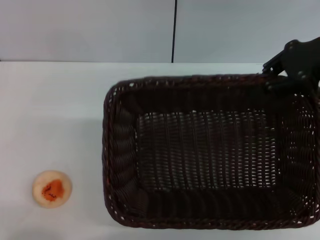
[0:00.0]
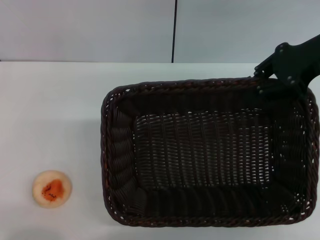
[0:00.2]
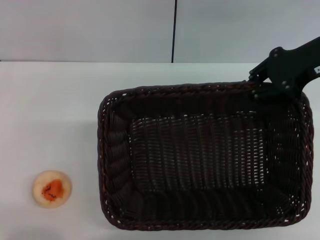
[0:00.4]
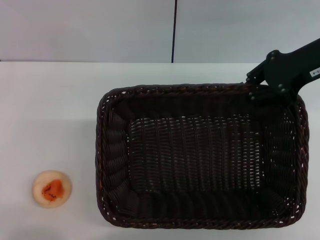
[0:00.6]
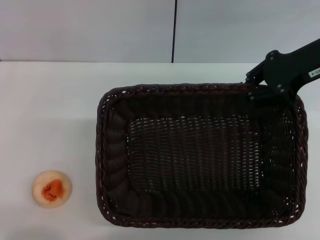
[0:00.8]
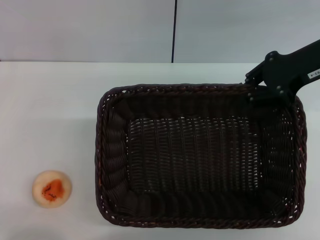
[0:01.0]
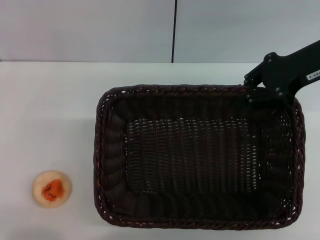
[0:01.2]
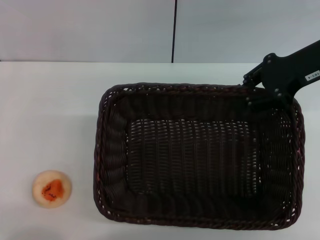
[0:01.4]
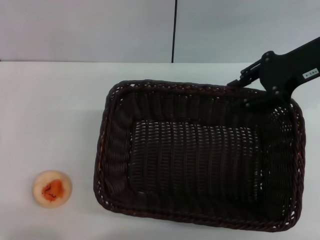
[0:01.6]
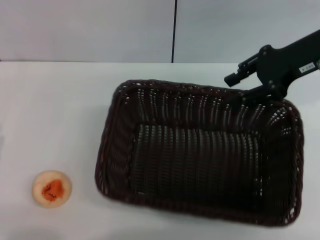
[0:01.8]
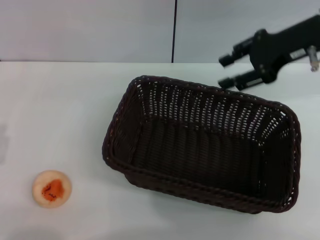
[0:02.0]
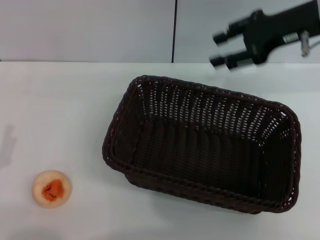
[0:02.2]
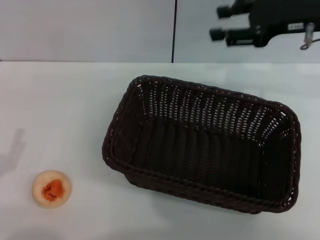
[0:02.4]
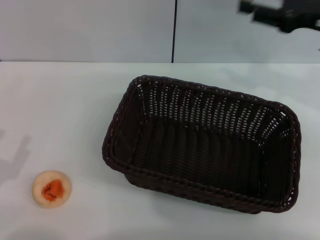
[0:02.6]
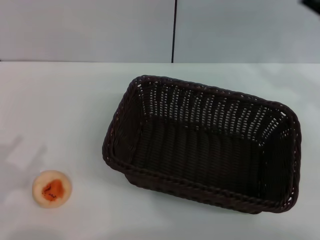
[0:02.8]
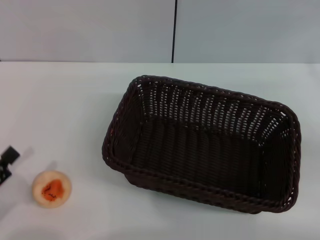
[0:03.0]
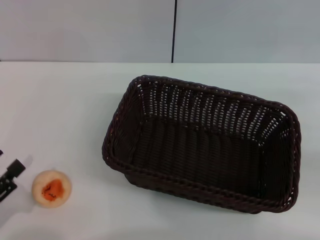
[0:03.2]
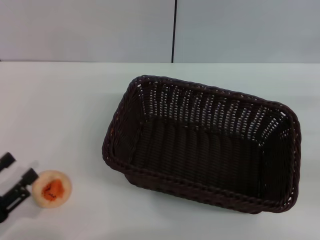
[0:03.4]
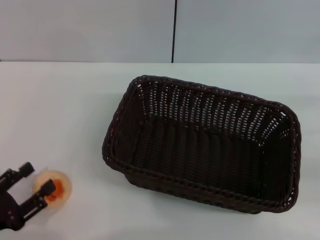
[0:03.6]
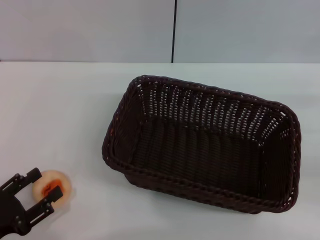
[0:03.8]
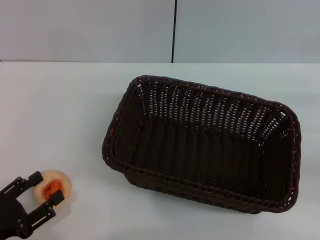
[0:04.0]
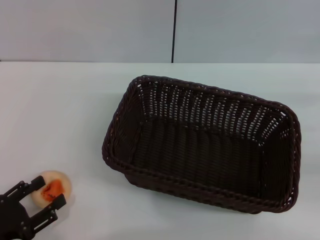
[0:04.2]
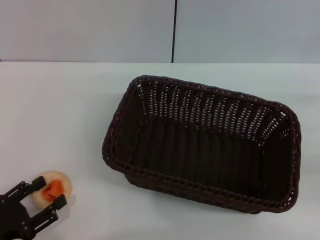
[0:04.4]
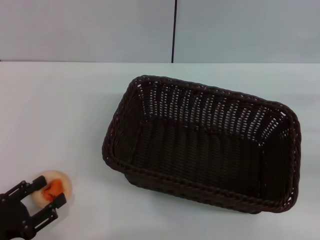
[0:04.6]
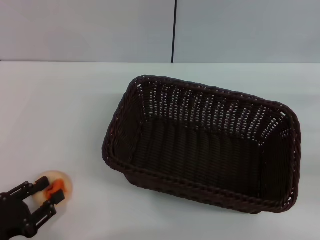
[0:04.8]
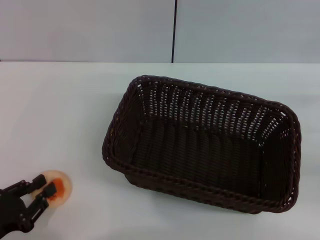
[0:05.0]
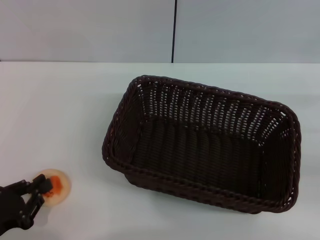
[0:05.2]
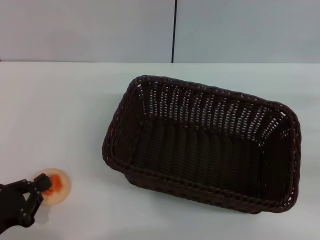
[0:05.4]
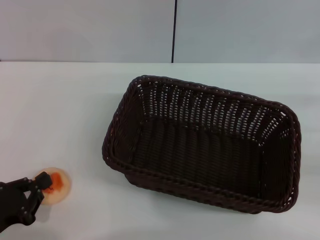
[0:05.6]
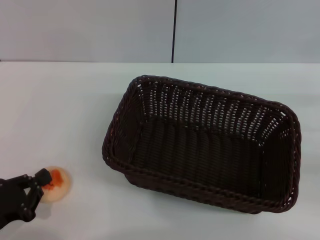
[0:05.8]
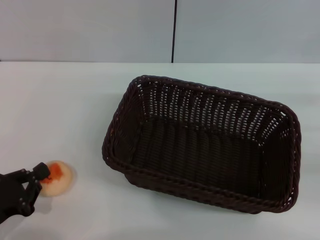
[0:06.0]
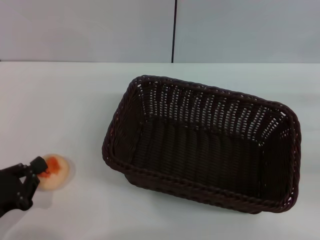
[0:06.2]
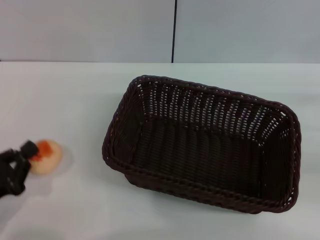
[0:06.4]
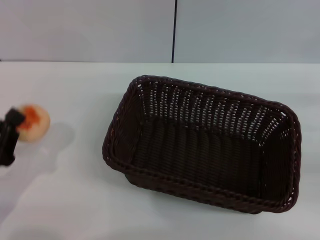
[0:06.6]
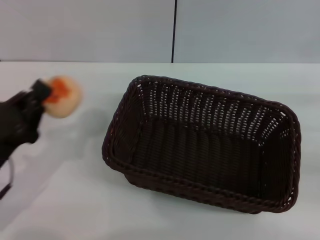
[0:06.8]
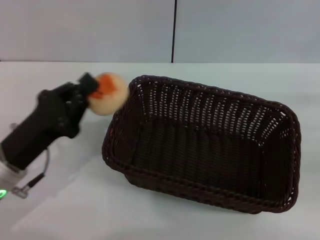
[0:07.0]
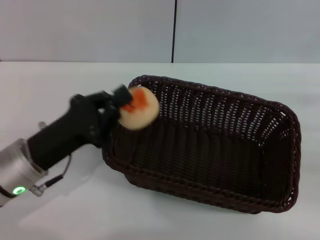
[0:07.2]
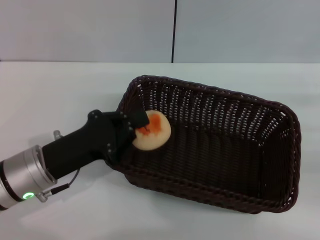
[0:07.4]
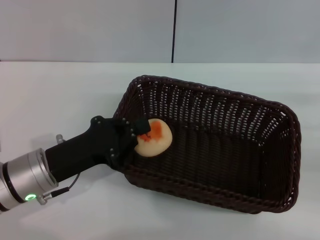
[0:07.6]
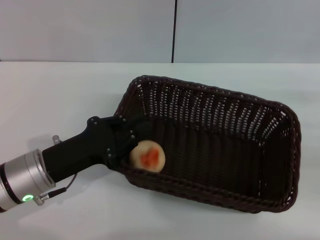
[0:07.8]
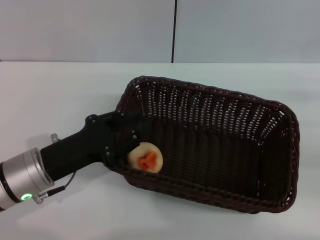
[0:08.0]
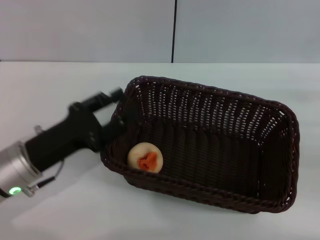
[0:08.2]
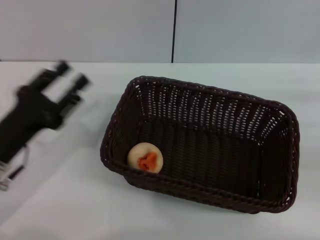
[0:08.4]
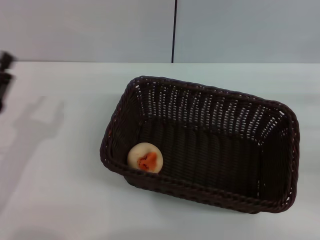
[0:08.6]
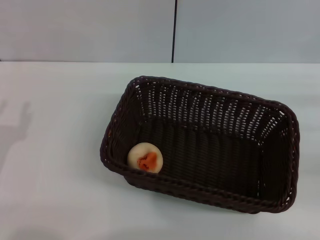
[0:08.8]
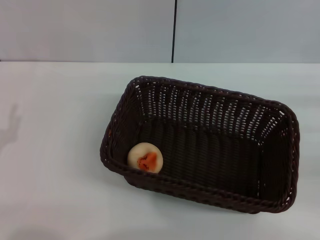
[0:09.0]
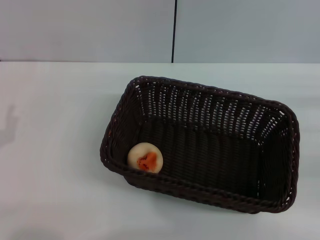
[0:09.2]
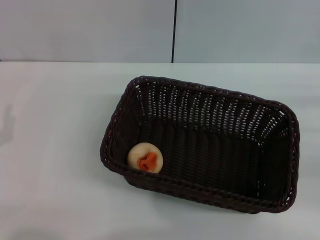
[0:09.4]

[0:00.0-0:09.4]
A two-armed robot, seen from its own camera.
Step, 0:00.0 to 0:02.0: Move the basket to the center of view with the right gripper.
Step, 0:02.2 to 0:06.4: Pick up the egg yolk pastry with the left gripper.
Step, 0:06.6 to 0:08.2: Place the egg yolk pastry into the basket with the left gripper.
0:00.0 to 0:01.6: There are only small adjustments of the grippers.
0:01.6 to 0:03.2: The right gripper moves to the right, backward and downward, about 20 cm, and opens up.
0:03.2 to 0:04.8: The grippers move only a little.
0:04.8 to 0:06.2: The left gripper closes up.
0:06.2 to 0:07.8: The left gripper travels to the right and forward by about 15 cm.
0:07.8 to 0:09.4: The left gripper heads to the left and backward, covering some 10 cm, and opens its fingers.
